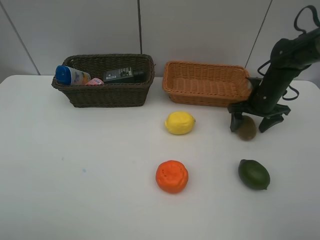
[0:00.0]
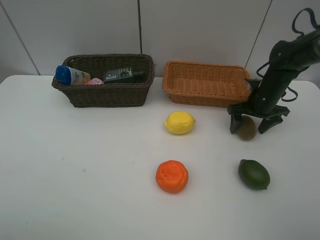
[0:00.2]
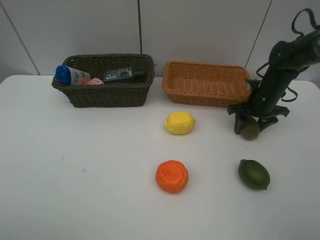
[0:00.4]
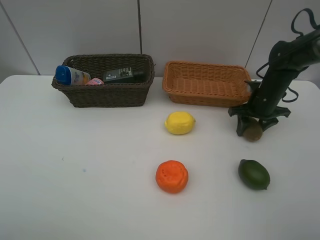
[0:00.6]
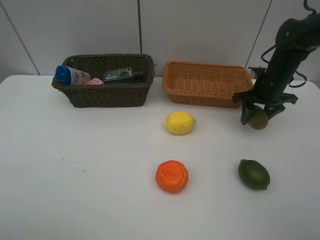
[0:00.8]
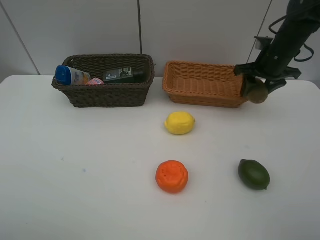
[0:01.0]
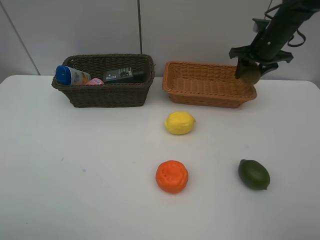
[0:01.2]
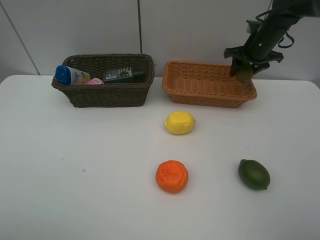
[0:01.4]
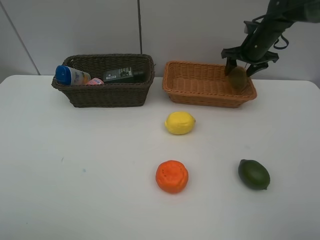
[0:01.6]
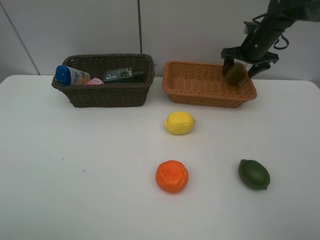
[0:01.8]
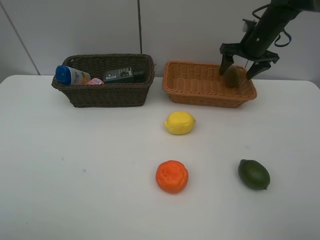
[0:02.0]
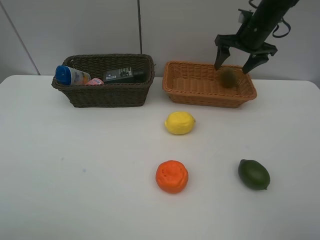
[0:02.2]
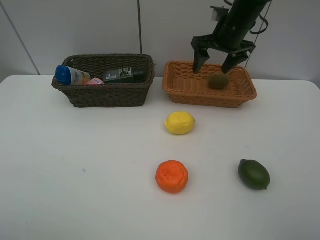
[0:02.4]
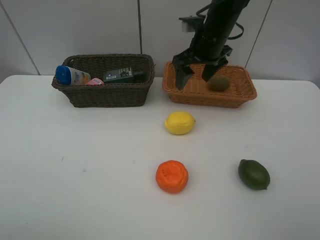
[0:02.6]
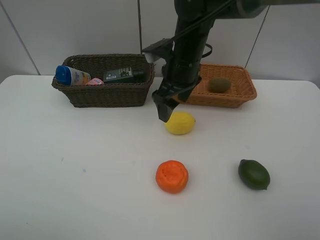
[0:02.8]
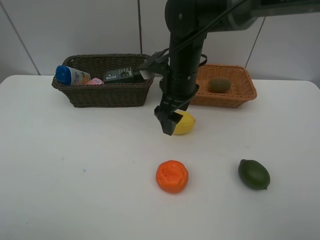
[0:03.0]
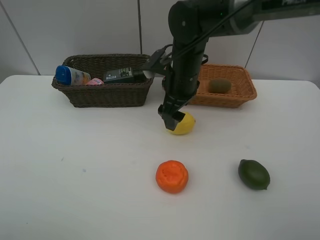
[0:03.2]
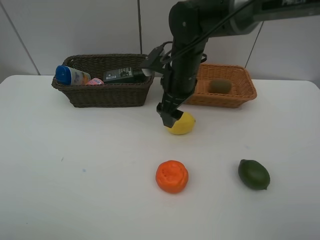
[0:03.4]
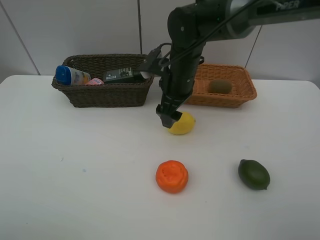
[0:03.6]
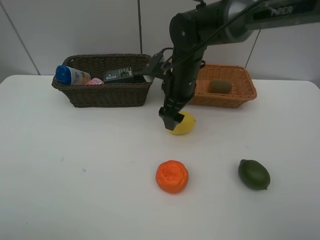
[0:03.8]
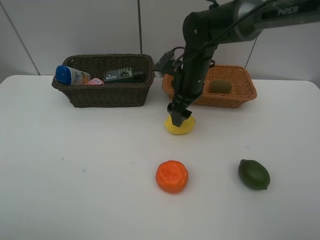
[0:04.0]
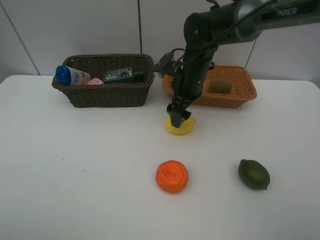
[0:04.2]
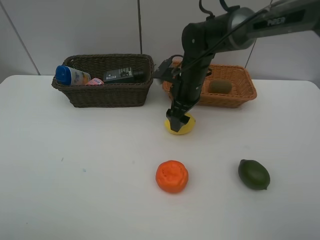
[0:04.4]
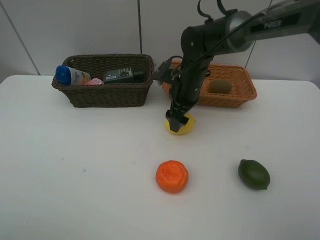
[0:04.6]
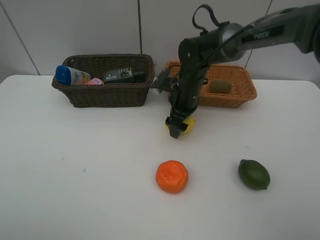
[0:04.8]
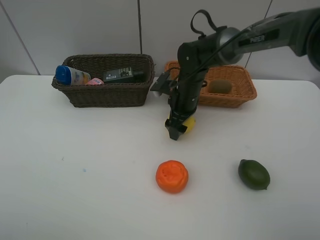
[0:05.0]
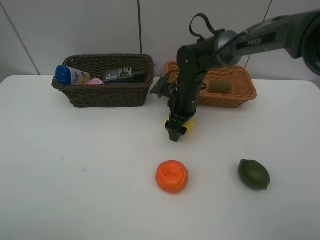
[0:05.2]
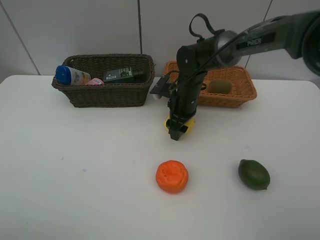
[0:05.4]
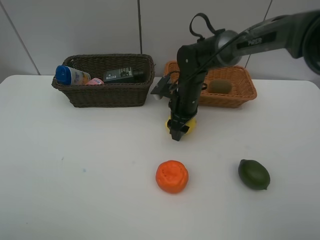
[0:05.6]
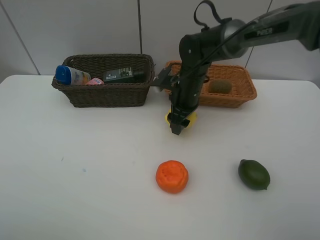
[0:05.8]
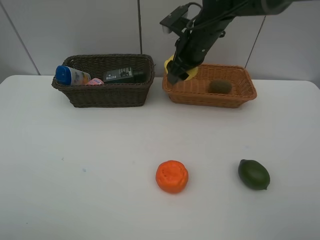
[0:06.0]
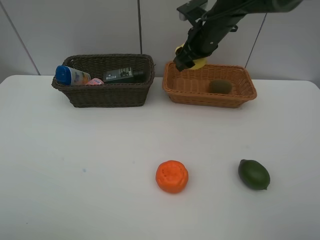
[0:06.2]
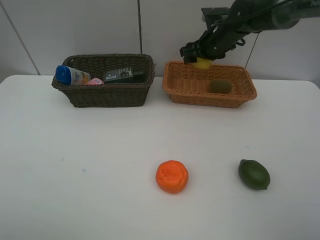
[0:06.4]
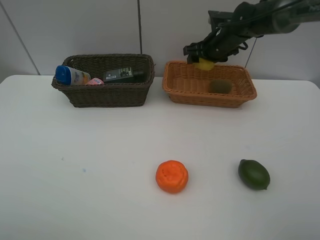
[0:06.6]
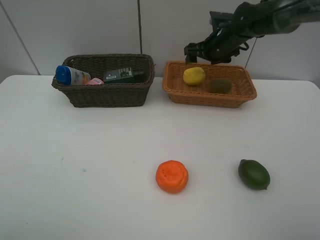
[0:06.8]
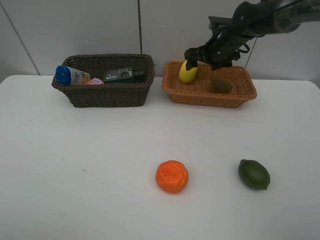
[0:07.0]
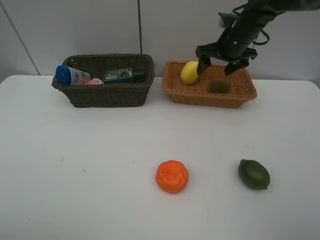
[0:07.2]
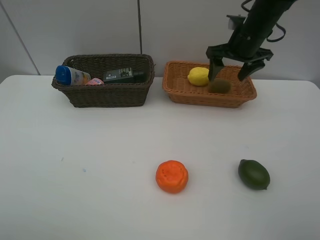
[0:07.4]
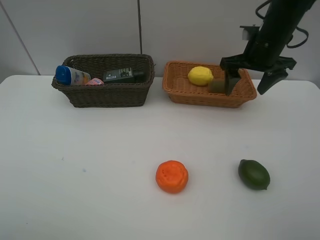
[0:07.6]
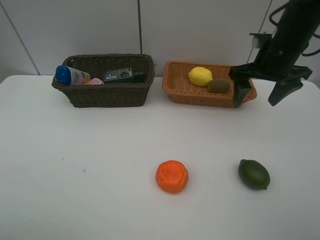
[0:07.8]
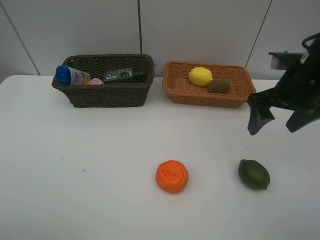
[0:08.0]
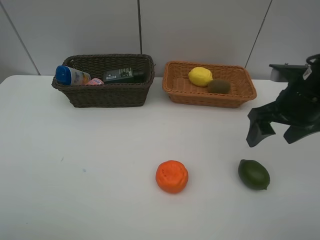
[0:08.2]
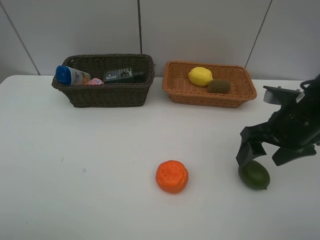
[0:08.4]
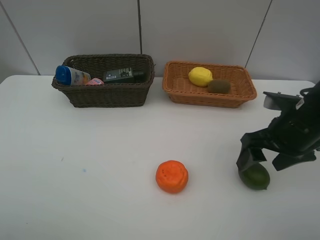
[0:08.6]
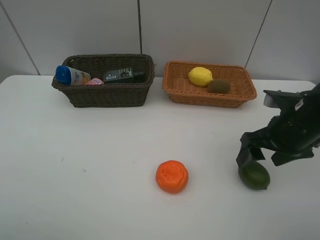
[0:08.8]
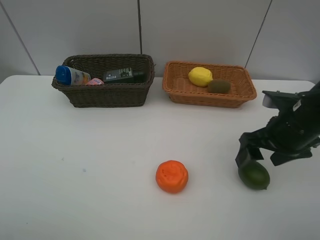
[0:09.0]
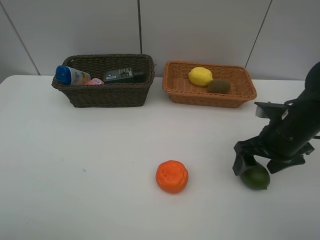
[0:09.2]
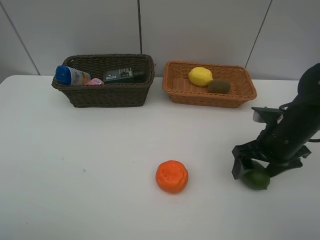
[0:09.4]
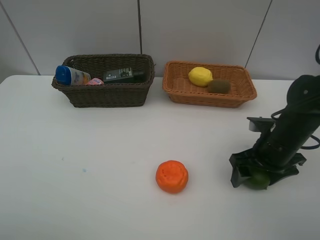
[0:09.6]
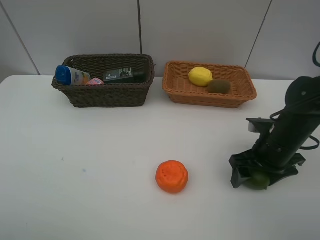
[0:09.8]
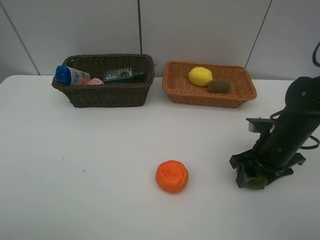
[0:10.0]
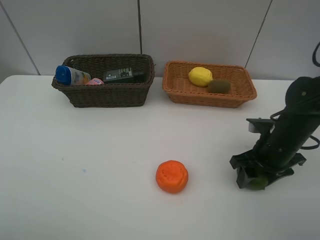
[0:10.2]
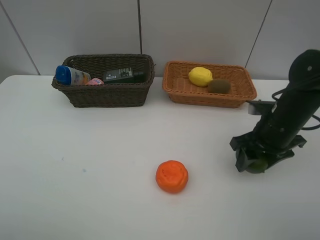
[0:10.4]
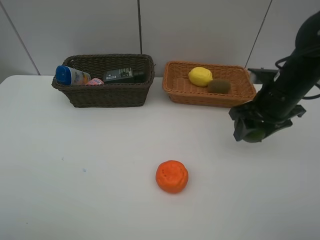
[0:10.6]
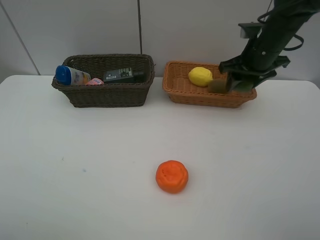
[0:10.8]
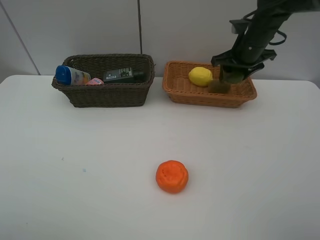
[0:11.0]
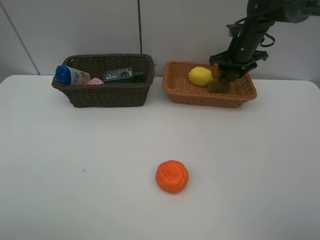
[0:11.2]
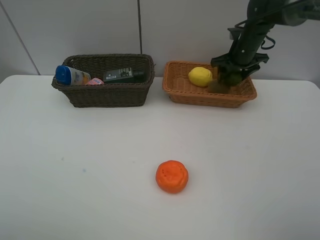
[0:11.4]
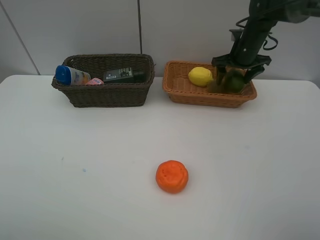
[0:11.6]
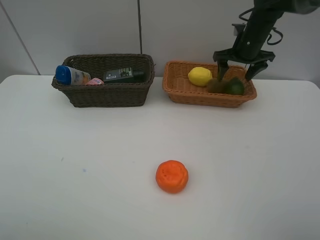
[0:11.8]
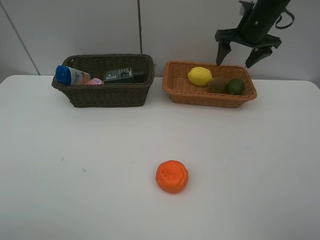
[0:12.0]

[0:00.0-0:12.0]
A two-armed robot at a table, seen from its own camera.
Task of the whole recording: Place multiple objects separately in different baskets.
Step, 1.0 to 2.0 s: Place the kiwi in the light basket with right gripper.
Step, 2.2 to 5.8 s: Pick up the lemon with right gripper.
Step, 6.0 to 7.0 s: Place the lemon in the light basket with right gripper.
Step, 7.2 to 10.4 s: Pick up the lime with right gripper.
Step, 10.6 to 11.8 s: Place the lime in the light basket with right gripper.
0.0 to 1.6 s: The right gripper travels forward and upward by about 15 cm, and closes and opens again.
1.6 to 3.0 s: The right gripper shifts approximately 25 cm to the left and backward.
3.0 to 4.4 s: The right gripper moves approximately 5 cm.
4.4 to 6.0 s: The right gripper shifts approximately 10 cm upward, and closes its fingers.
6.0 to 7.6 s: The right gripper heads to the right, covering approximately 15 cm, and opens its fingers.
7.6 to 9.0 s: The right gripper goes about 15 cm backward and downward.
9.0 to 10.4 s: The right gripper closes its fingers.
10.4 to 12.0 s: The right gripper shifts about 20 cm forward and upward, and opens up.

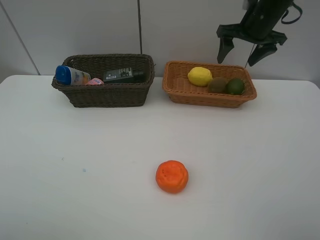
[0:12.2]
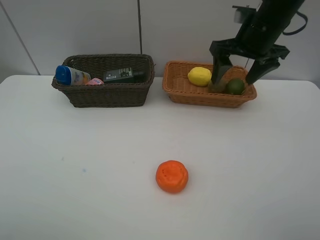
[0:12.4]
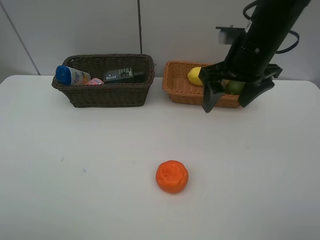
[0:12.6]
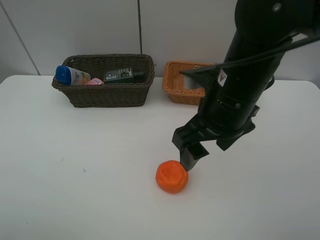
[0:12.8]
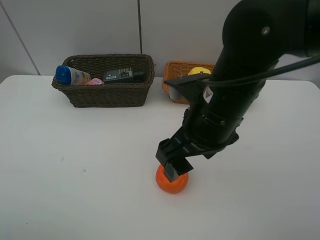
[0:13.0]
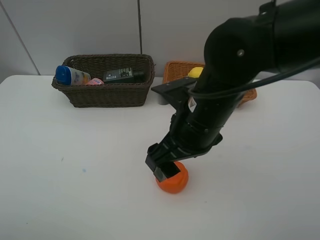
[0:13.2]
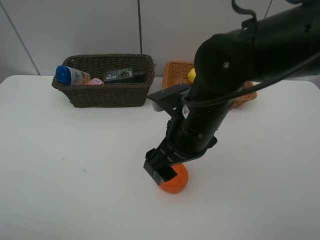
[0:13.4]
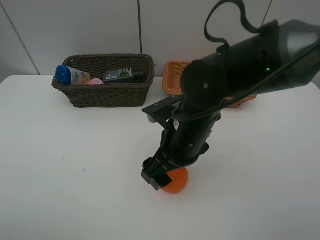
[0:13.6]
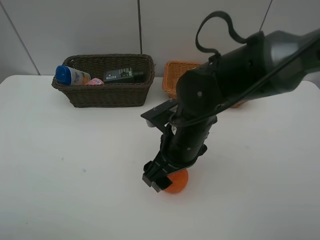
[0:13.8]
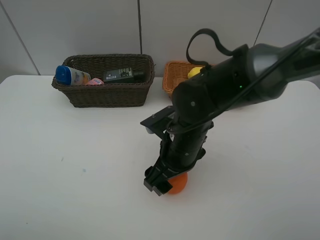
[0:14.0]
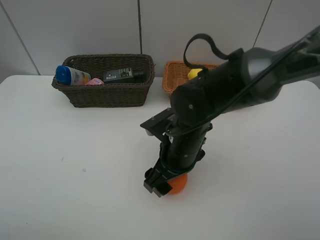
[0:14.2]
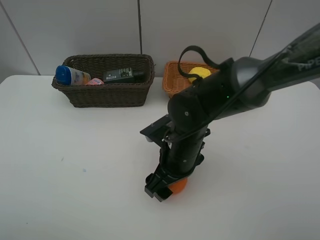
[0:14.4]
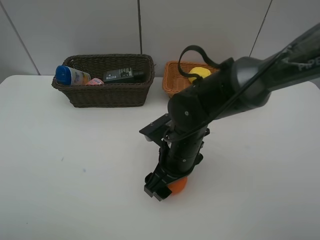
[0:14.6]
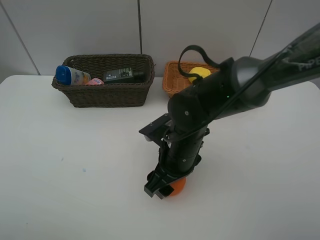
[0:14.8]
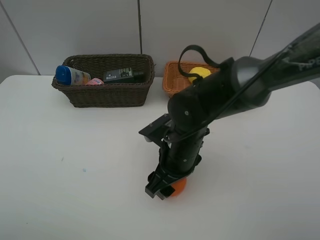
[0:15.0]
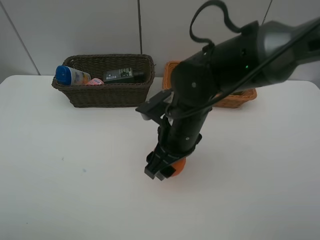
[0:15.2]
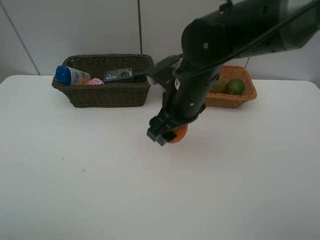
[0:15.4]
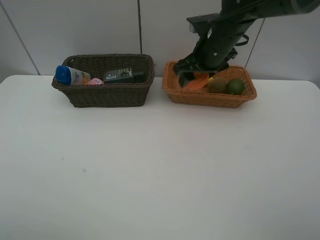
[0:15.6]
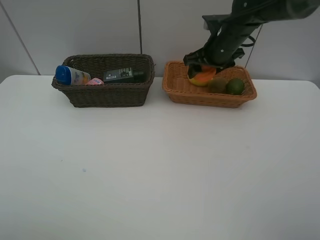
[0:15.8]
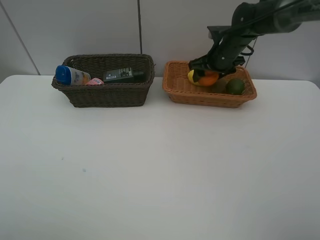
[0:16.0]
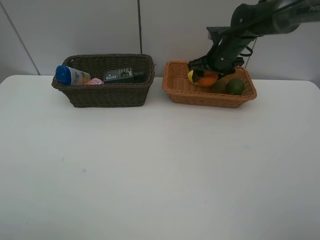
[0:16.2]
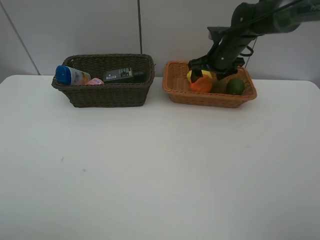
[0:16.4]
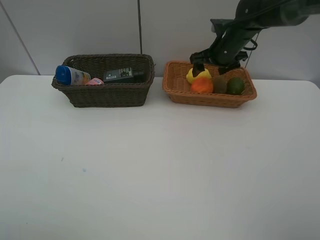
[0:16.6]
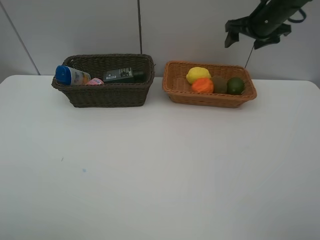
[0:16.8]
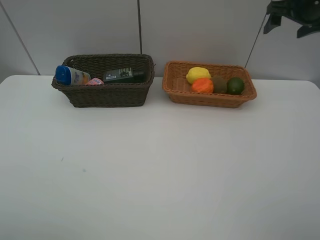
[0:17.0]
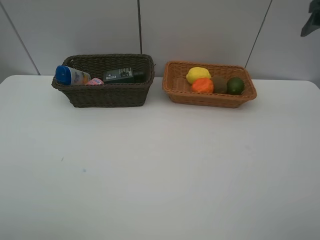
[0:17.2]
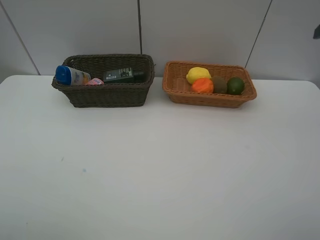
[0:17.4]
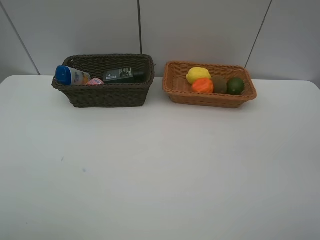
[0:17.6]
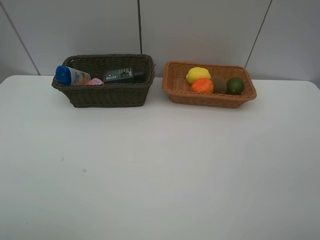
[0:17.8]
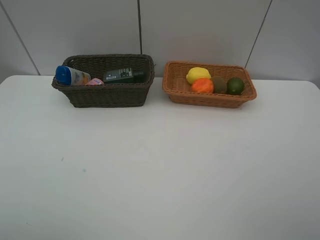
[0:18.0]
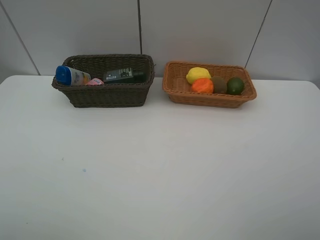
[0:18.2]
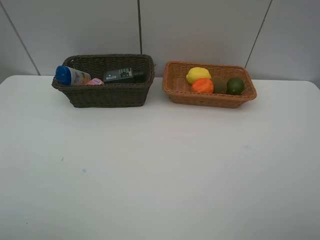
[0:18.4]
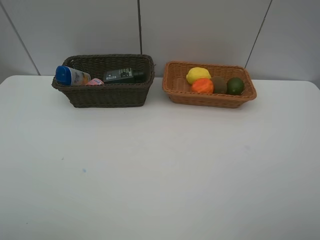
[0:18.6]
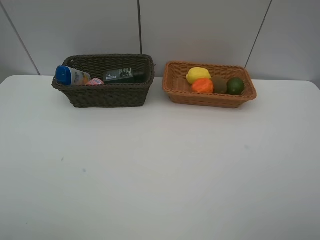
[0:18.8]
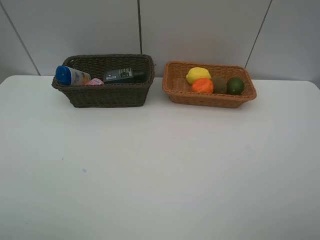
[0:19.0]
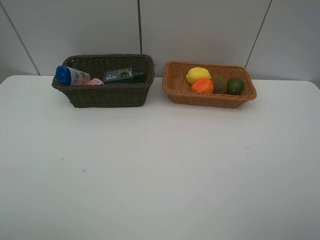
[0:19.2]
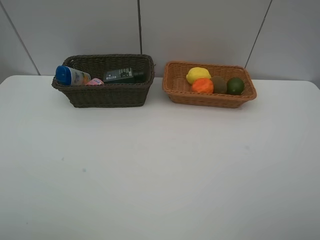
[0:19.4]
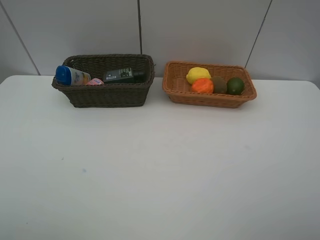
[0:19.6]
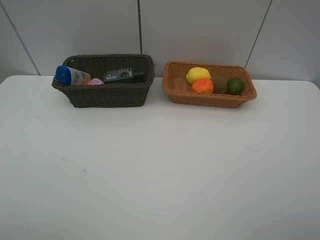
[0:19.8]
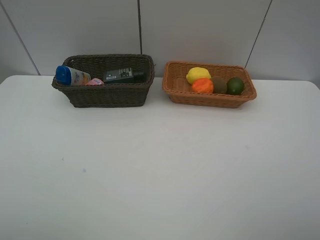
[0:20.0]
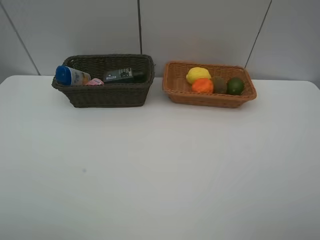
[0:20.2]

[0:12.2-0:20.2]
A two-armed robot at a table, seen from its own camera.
Task of the whole recording: Place multiple objects separately in different baskets.
Step, 12.2 to 15.2 s: Pick up the orange with right gripper.
Step, 15.4 to 16.6 s: Place the orange in the light basket with right gripper.
12.2 to 13.8 s: The right gripper is displaced backward, to the left and downward by approximately 30 cm.
13.8 to 15.4 s: The right gripper heads forward and upward, covering approximately 10 cm, and closes its fingers.
15.4 to 17.0 s: The right gripper is displaced to the right and forward by approximately 30 cm, and opens up.
17.0 to 18.6 s: The right gripper goes about 40 cm backward.
18.6 to 20.2 s: Neither gripper changes place.

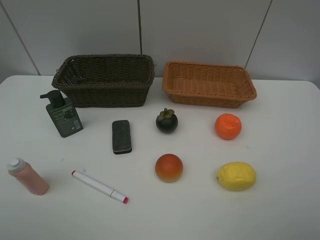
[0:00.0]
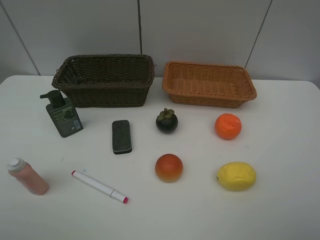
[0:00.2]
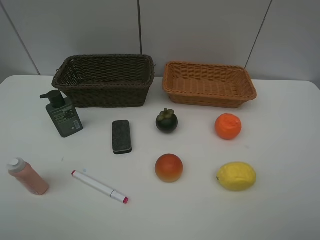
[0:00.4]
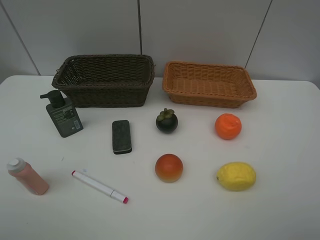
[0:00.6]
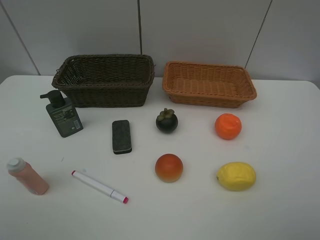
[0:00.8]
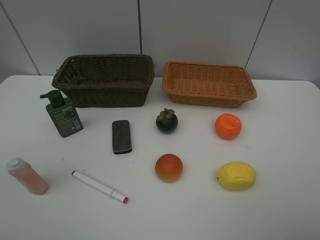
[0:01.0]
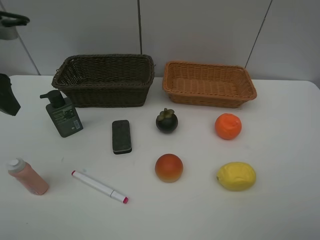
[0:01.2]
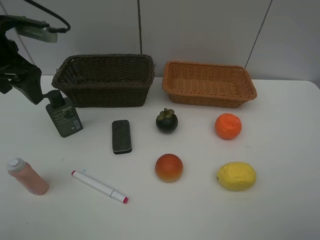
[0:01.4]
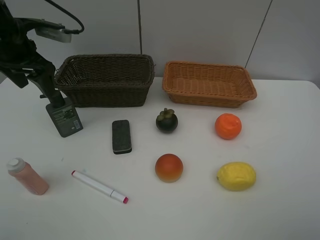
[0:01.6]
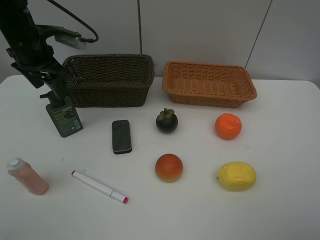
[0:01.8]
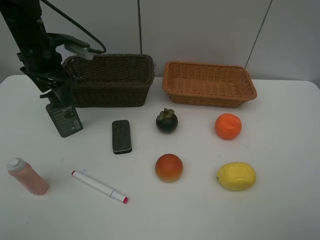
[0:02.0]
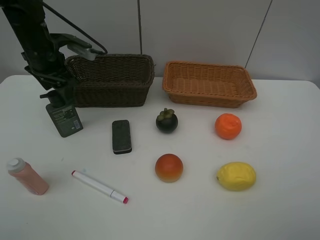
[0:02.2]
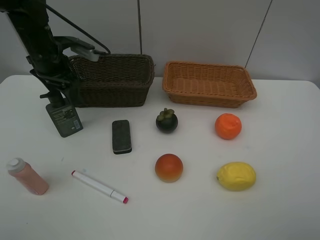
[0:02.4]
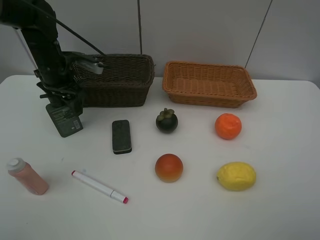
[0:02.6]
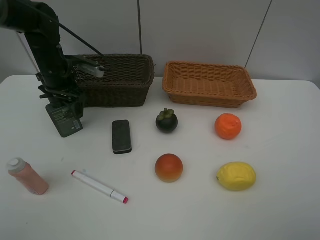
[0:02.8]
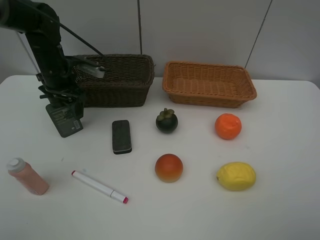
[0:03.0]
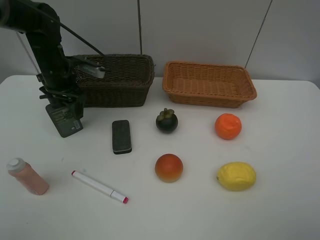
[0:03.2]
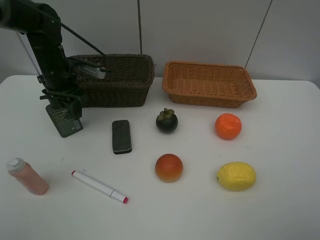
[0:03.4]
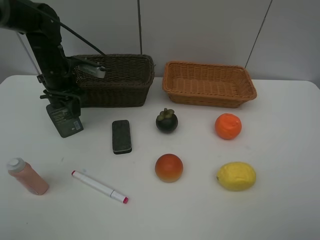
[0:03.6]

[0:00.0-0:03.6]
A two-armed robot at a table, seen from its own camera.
Task of the whole recording: Place multiple objects separately in different baskets.
0.0 to 1.8 s: The left gripper heads forward, covering some 40 cm.
1.8 to 3.6 s: The left gripper goes roughly 5 cm downward, and closes up.
